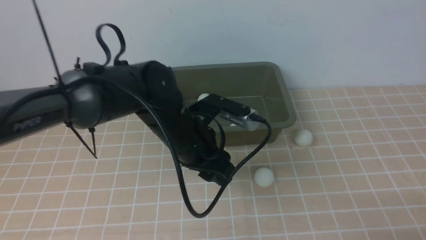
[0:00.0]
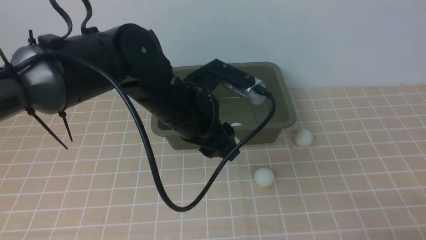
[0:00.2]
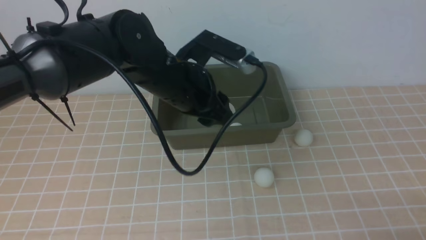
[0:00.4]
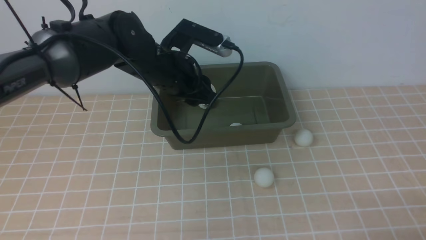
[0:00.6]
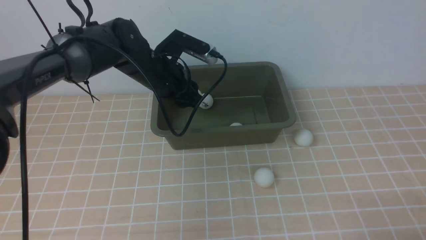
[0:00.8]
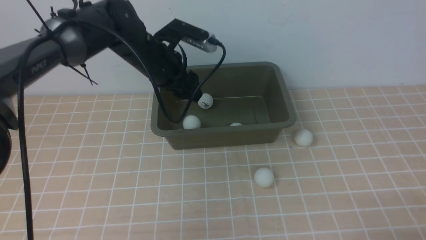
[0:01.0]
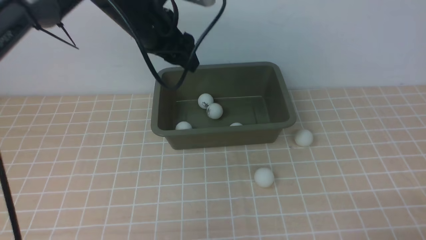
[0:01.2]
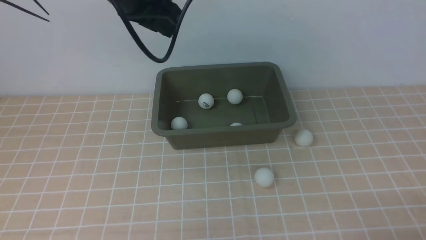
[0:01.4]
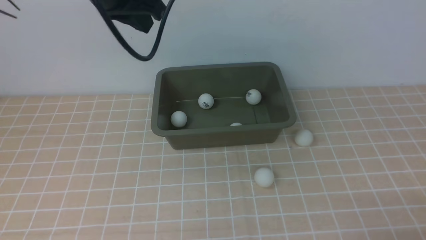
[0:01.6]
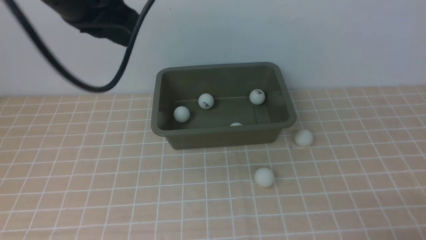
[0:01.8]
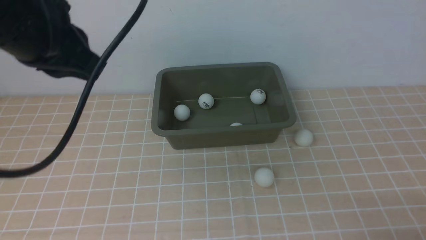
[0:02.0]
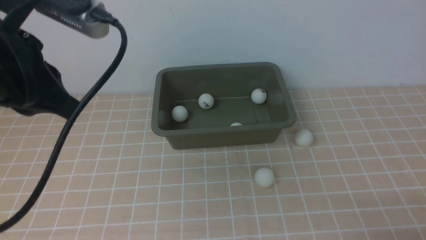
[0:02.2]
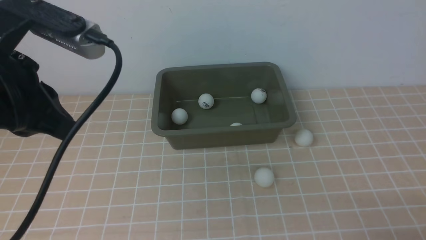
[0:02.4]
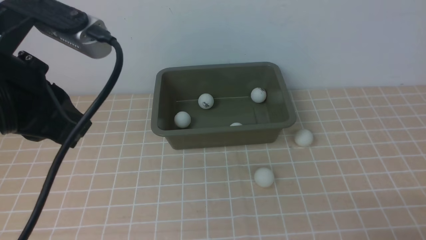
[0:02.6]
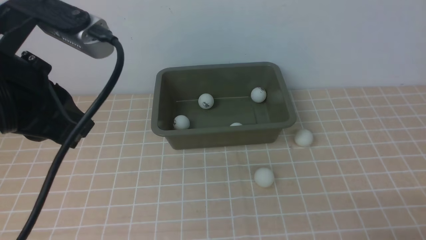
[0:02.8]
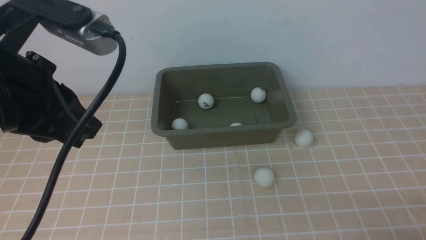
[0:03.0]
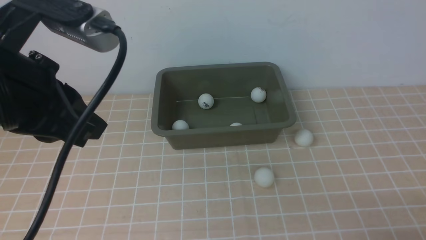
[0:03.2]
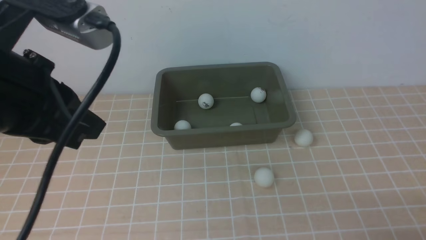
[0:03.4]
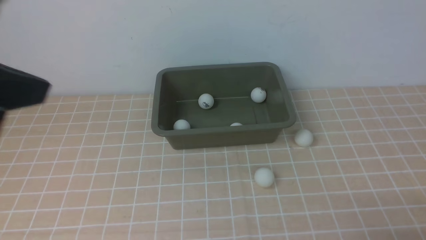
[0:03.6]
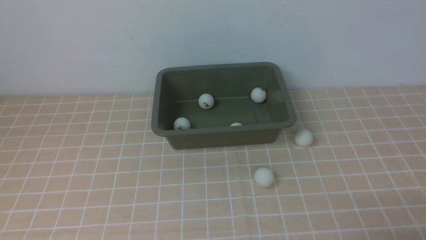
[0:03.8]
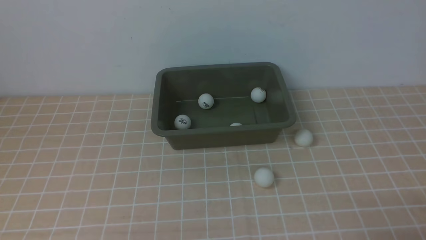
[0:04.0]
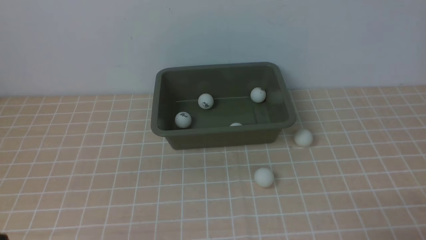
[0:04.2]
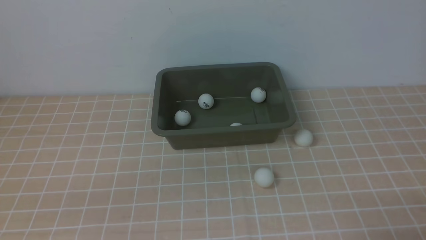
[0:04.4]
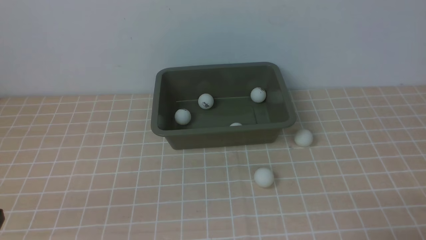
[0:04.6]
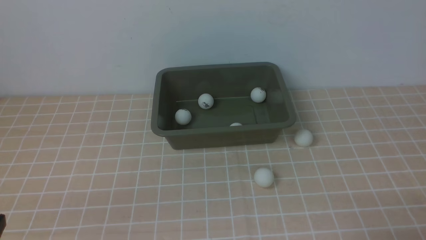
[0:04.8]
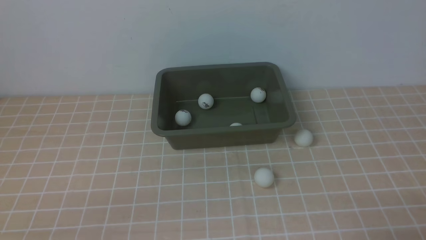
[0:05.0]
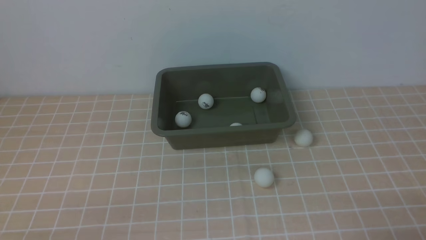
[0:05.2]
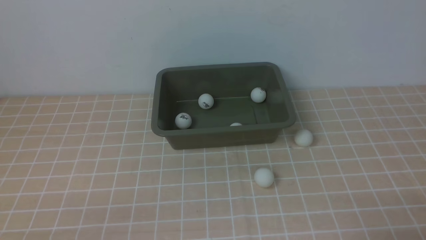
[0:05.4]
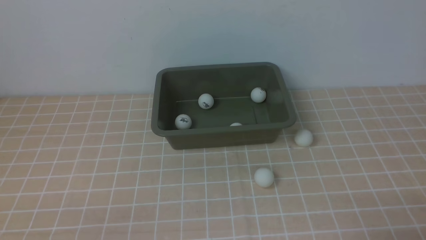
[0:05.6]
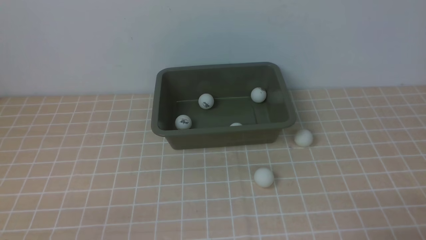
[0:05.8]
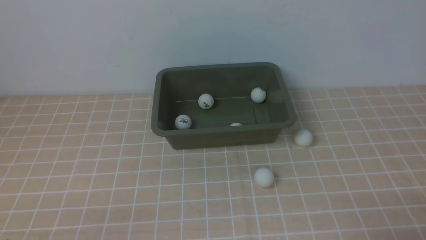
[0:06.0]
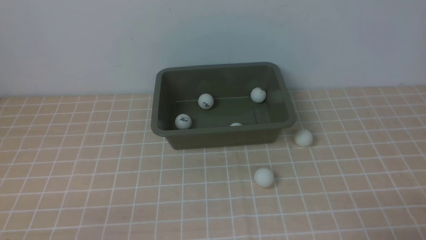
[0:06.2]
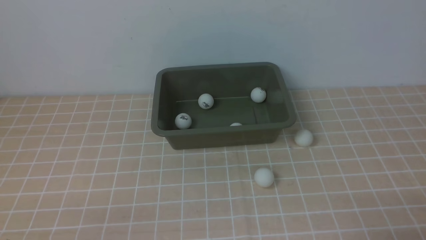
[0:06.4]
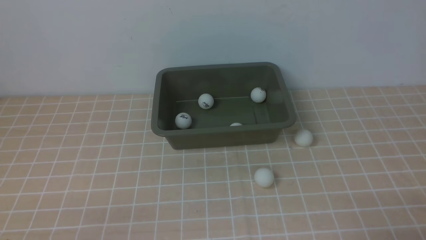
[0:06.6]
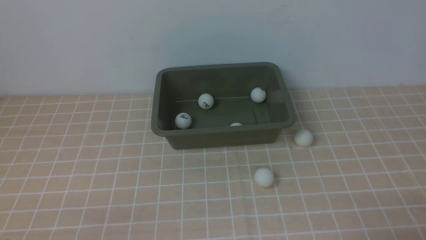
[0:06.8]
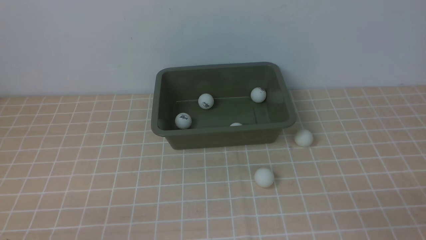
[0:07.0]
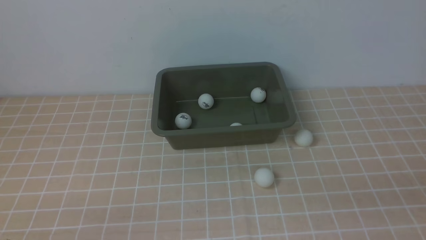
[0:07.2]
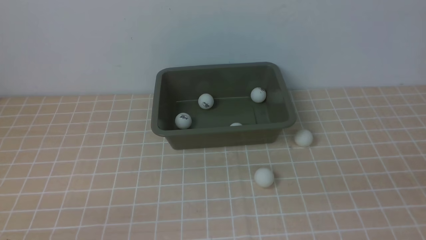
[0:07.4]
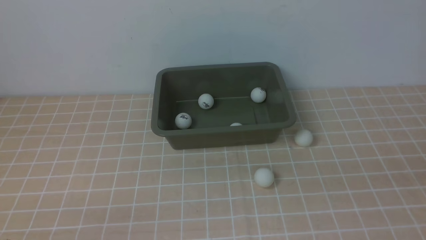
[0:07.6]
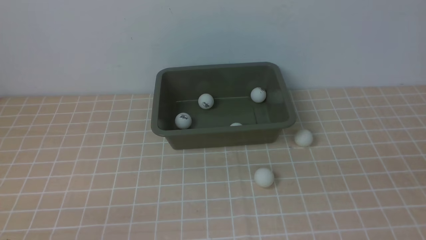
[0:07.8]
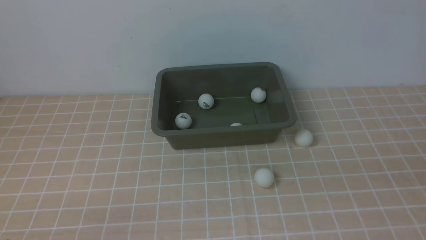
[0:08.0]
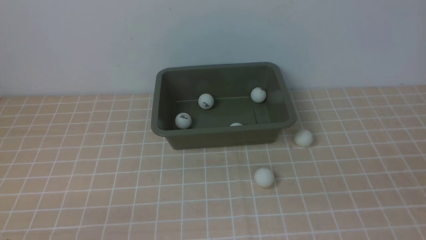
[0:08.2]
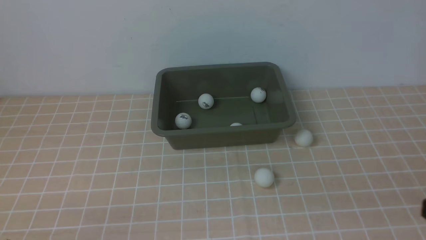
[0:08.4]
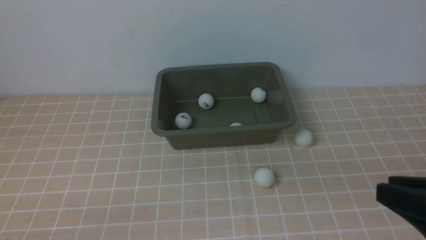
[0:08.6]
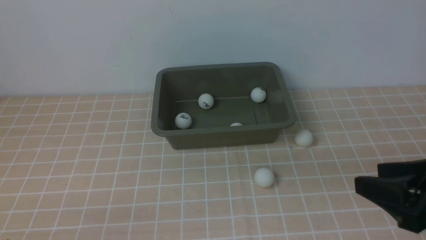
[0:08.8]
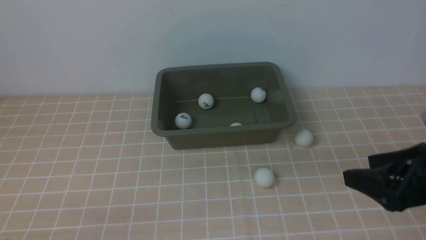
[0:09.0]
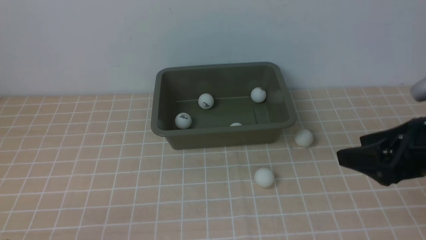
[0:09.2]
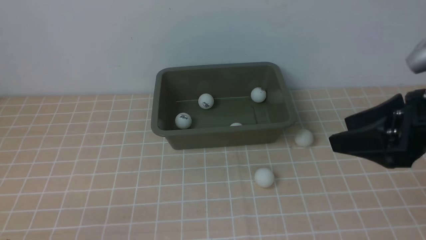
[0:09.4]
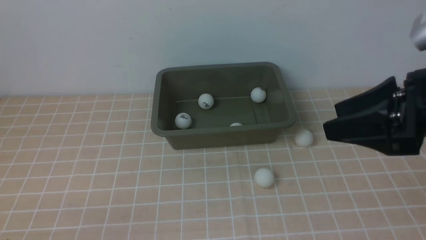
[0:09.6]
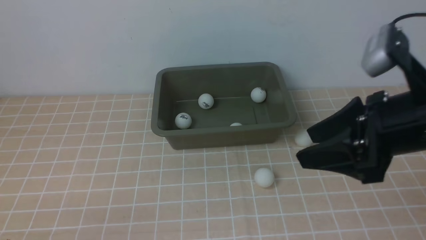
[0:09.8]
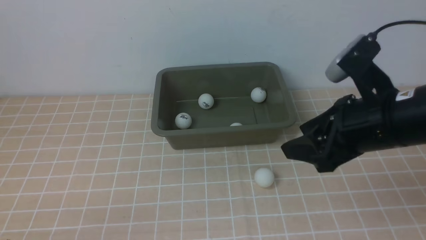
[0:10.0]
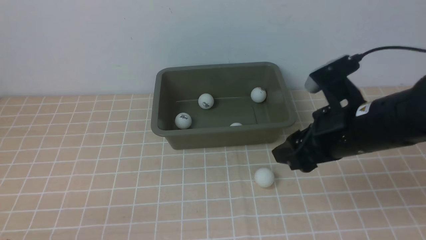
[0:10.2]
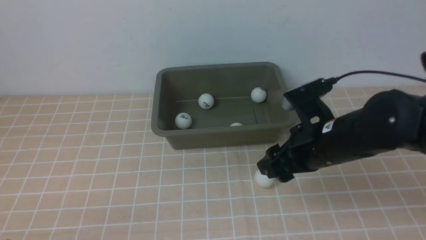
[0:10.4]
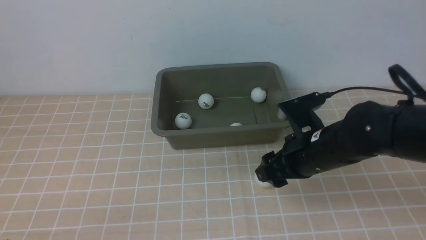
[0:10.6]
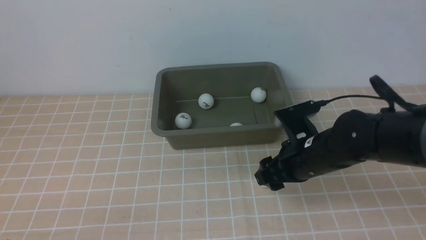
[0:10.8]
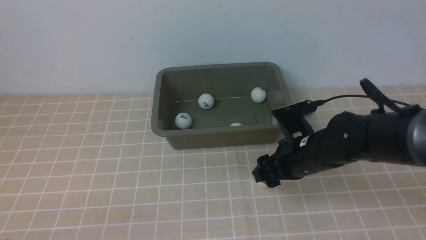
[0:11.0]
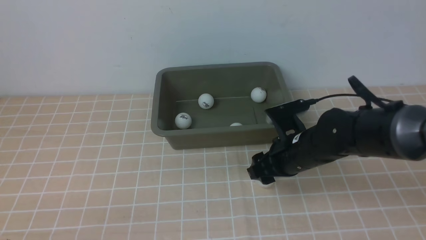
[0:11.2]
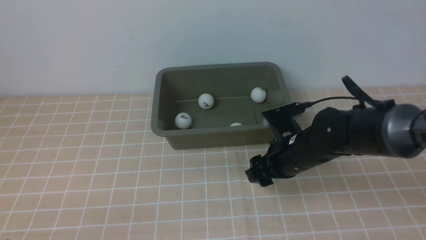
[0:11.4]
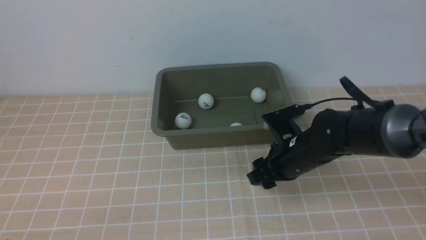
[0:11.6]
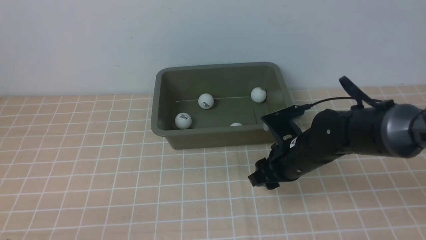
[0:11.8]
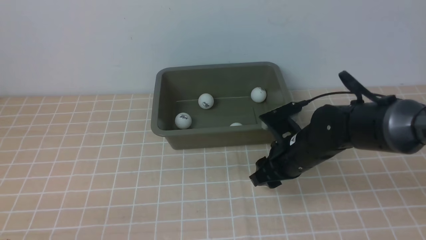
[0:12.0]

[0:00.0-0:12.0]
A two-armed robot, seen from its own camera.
Step, 0:00.0 to 0:01.2: use the left arm to put the table tennis ball into the box.
0:00.0 to 0:01.6: The left gripper shifts some 20 cm upward and to the left, and closes up.
0:01.6 to 0:03.0: The left gripper heads backward, covering approximately 15 cm.
0:03.0 to 0:04.4: The left gripper is displaced downward, backward and to the left by roughly 20 cm.
0:07.6 to 0:09.0: The right gripper moves forward, approximately 15 cm, and opens its fingers.
0:09.0 to 0:10.4: The right gripper moves to the left and forward, roughly 15 cm.
0:10.4 to 0:12.0: The right gripper changes place by roughly 5 cm.

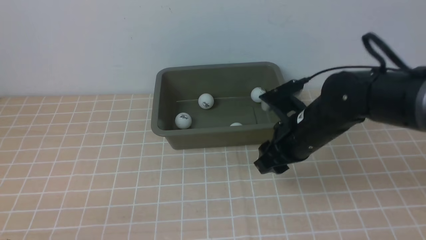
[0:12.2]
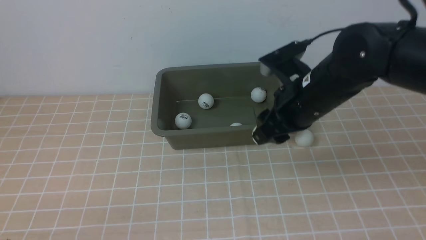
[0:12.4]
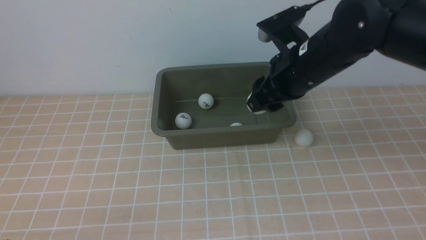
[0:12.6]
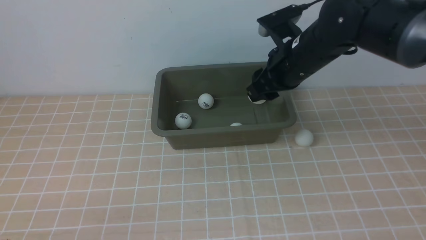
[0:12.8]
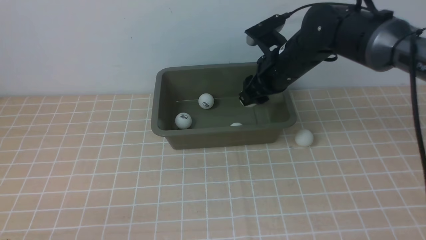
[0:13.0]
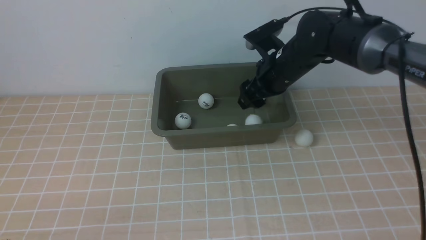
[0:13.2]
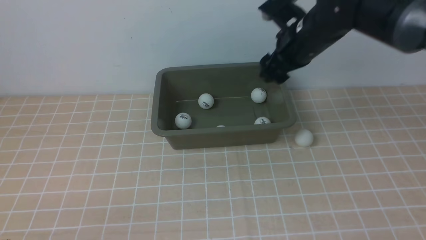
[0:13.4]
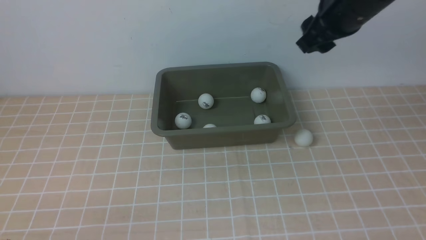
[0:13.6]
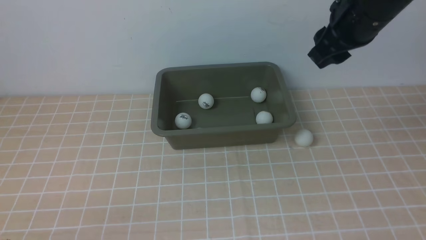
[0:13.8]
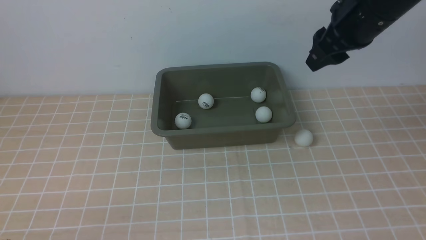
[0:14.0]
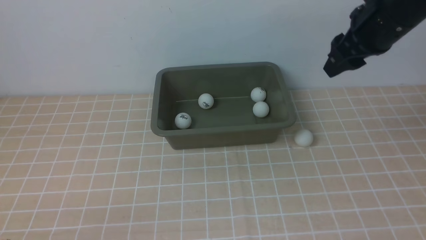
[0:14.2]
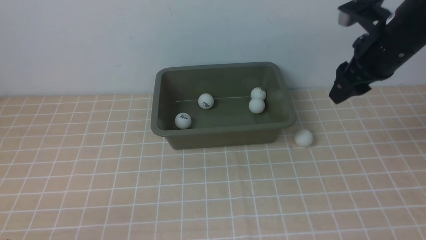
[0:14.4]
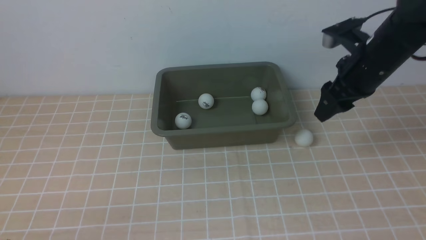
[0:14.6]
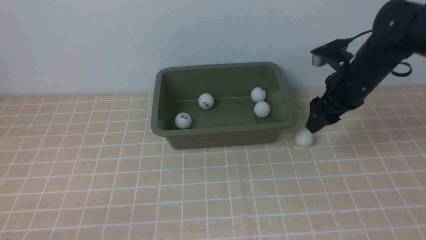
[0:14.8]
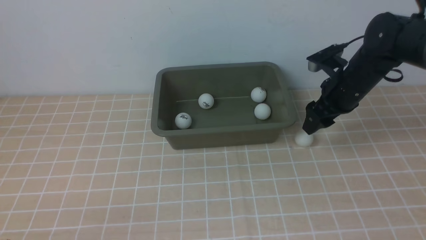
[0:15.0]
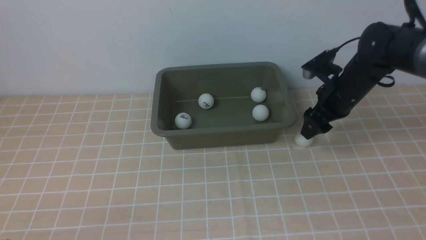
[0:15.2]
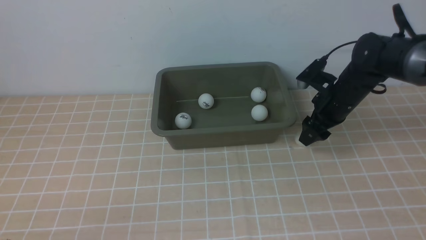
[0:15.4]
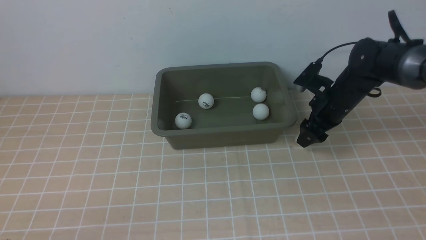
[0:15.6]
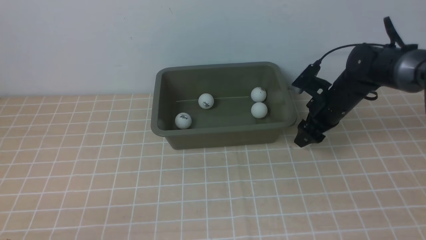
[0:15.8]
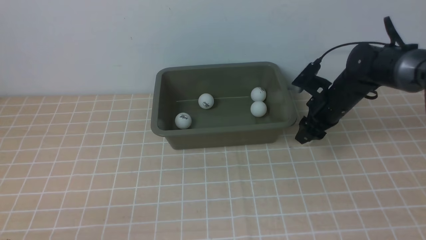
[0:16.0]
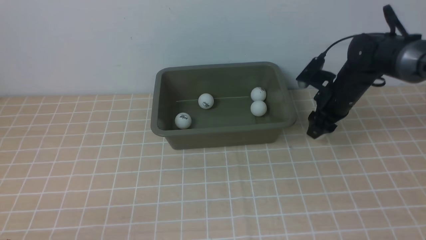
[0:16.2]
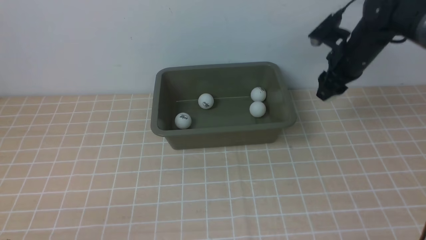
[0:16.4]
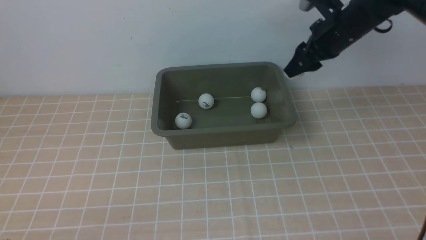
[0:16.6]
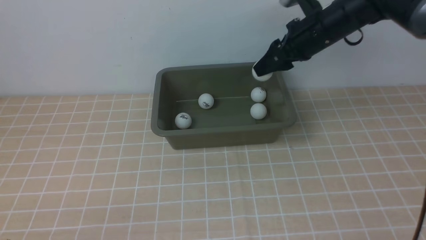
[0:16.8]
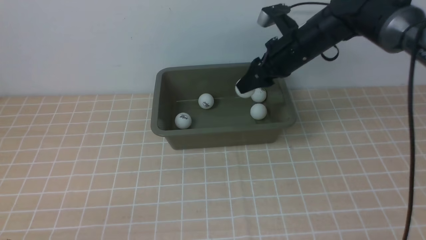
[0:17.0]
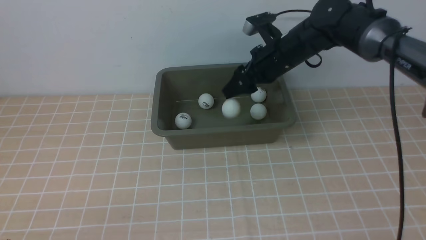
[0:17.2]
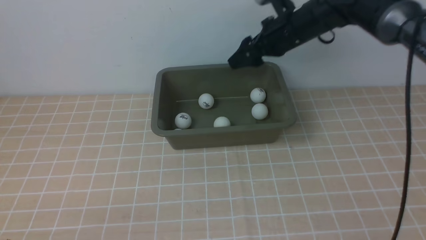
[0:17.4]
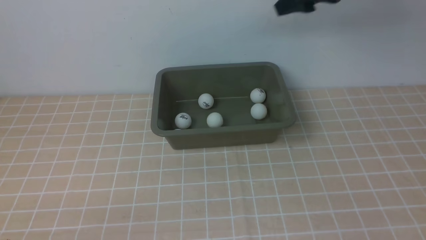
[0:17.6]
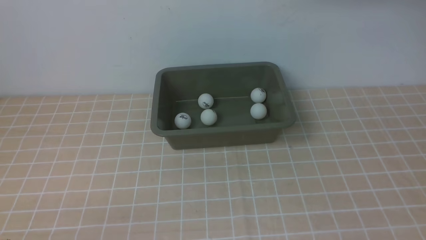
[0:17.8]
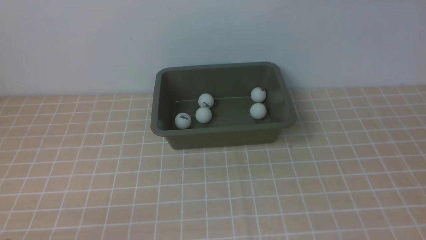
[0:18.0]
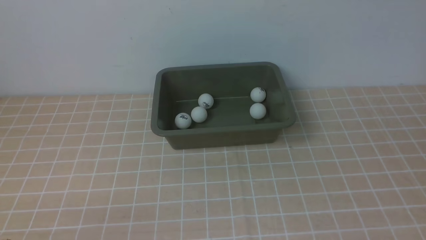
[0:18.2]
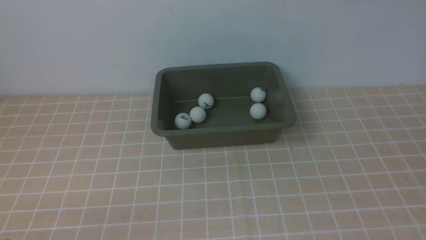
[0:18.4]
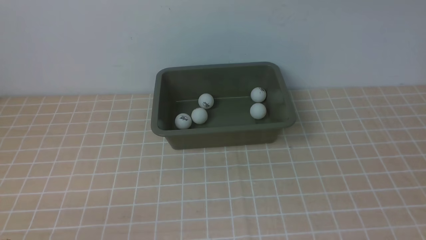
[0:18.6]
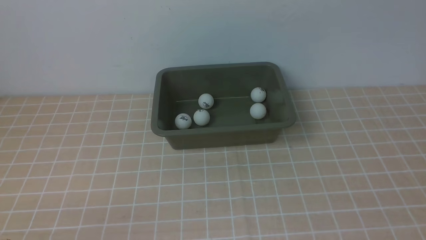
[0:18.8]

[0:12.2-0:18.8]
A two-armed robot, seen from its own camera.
Step, 0:12.6 to 0:13.4: use the right arm to put the table tennis ball into the box.
Step, 0:13.6 to 0:16.4: use the right arm to clamp the table tennis ball closest to it.
Step, 0:16.8 to 0:17.4: use the right arm to put the table tennis ball into the box.
0:12.2 to 0:13.8: The right gripper shifts roughly 15 cm upward and to the right.
0:13.8 to 0:15.4: The right gripper moves downward, some 20 cm.
0:15.4 to 0:17.2: The right gripper travels to the left and upward by roughly 15 cm.
0:17.2 to 0:18.8: The right gripper is displaced upward, backward and to the right by some 40 cm, and closes up.
